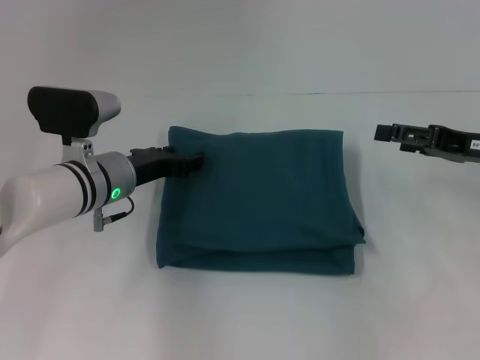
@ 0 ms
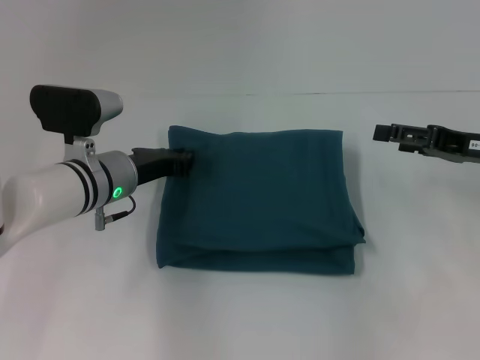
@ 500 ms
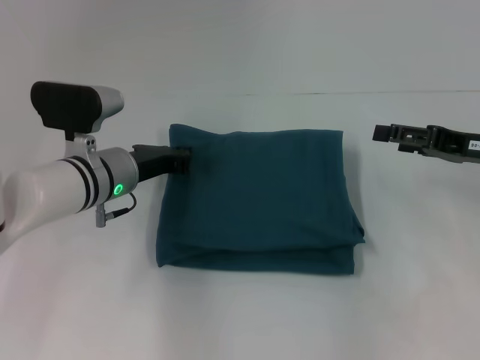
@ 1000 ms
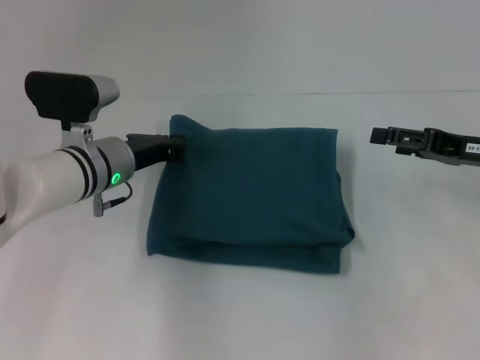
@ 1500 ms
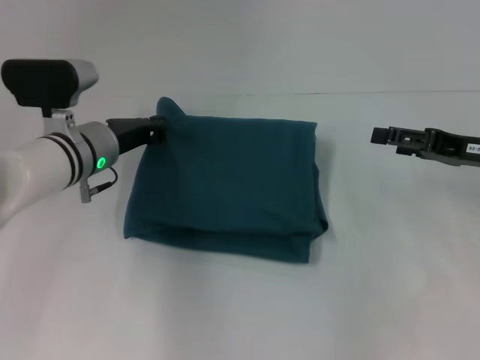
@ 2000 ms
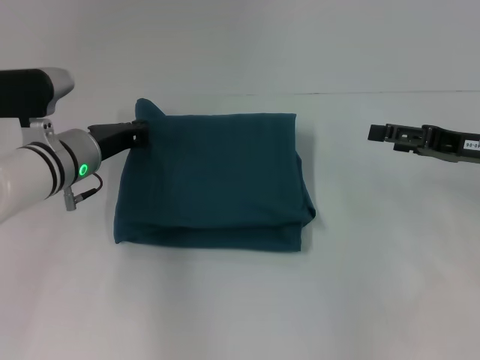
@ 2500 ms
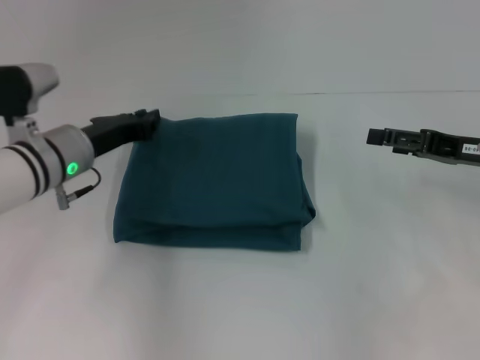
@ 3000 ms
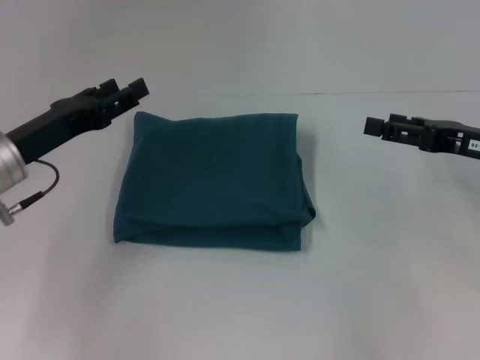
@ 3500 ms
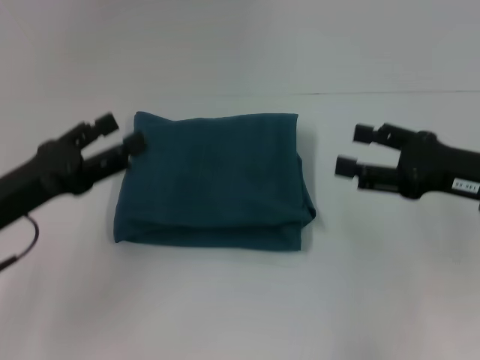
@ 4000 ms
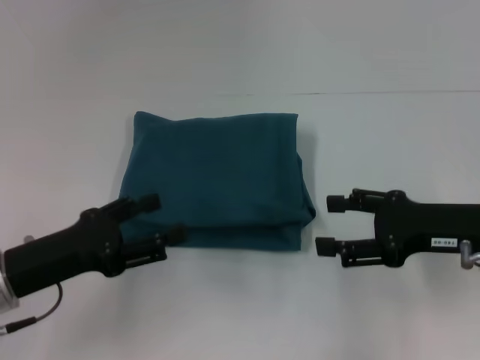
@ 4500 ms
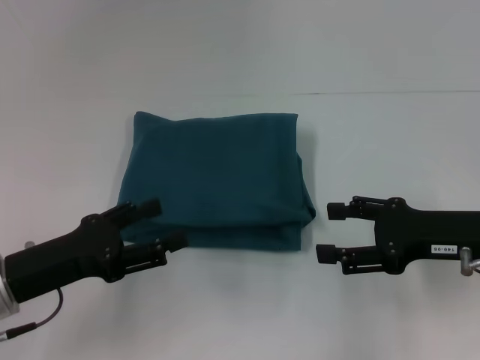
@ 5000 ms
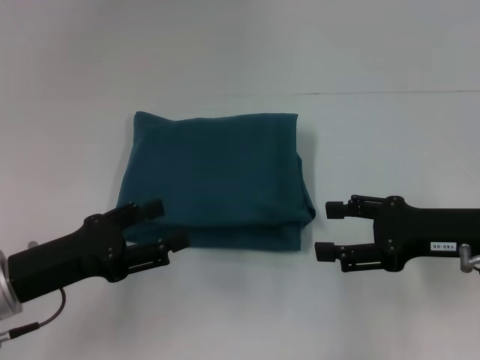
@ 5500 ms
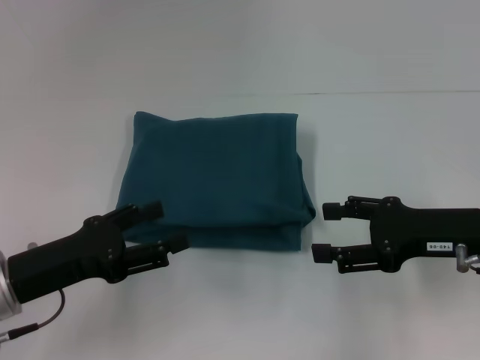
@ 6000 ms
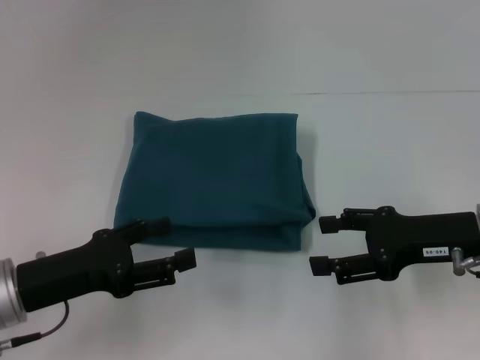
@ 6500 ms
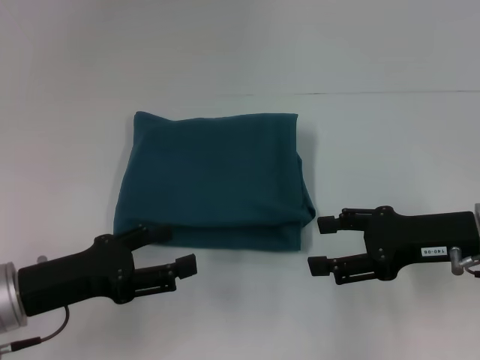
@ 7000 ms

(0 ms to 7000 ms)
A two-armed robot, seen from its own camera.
0 ms - 2000 ms: The left gripper closes up.
2000 ms - 3500 ms: The left gripper moves to the left and backward, approximately 10 cm, and opens up.
3500 ms - 5000 ms: The right gripper moves roughly 5 cm. Meanwhile the left gripper shifts approximately 10 cm backward, and opens up.
5000 ms - 7000 ms: There are only small adjustments of the grippers.

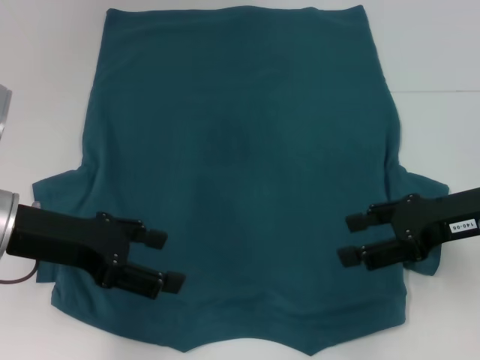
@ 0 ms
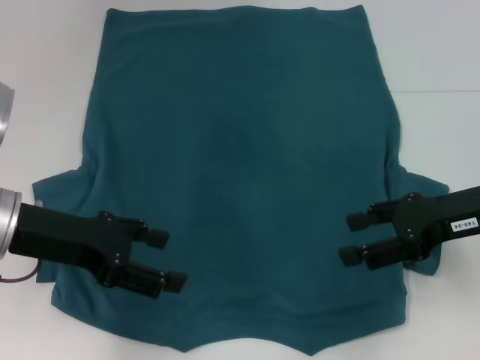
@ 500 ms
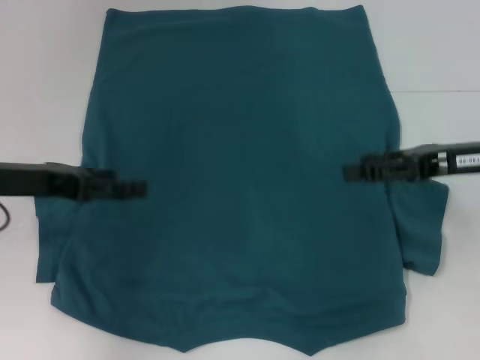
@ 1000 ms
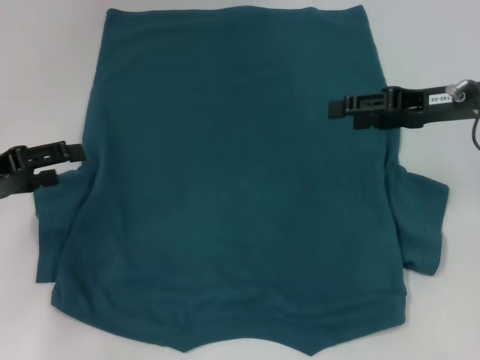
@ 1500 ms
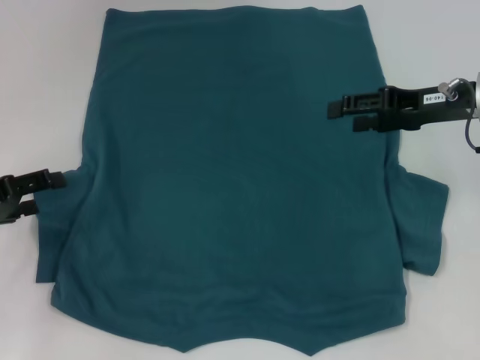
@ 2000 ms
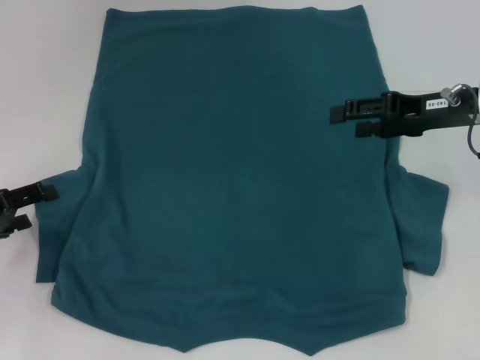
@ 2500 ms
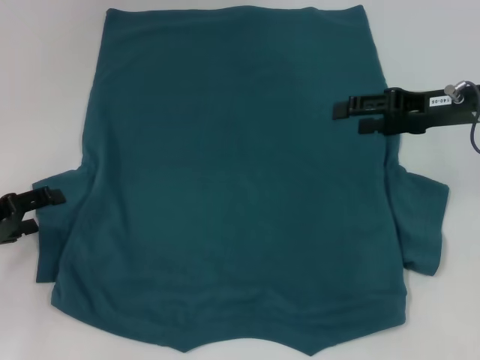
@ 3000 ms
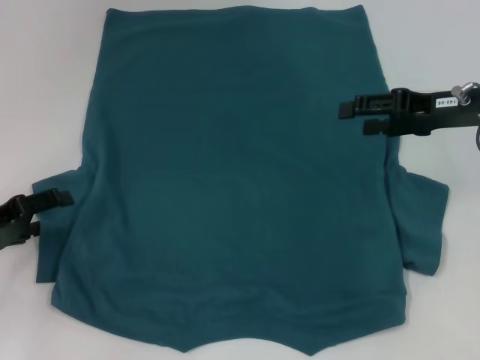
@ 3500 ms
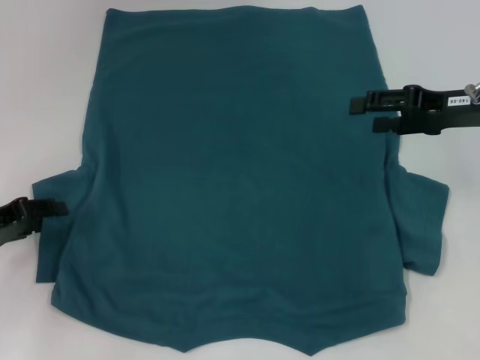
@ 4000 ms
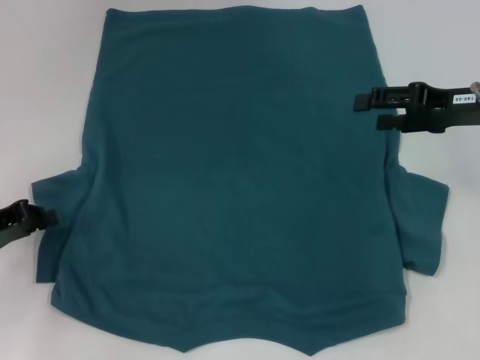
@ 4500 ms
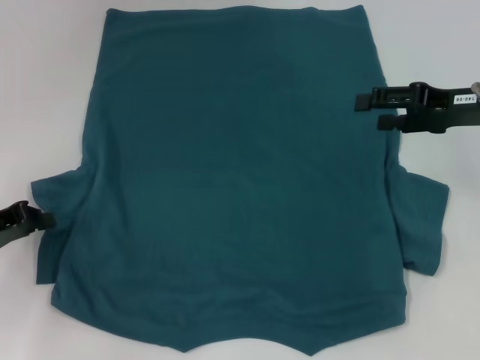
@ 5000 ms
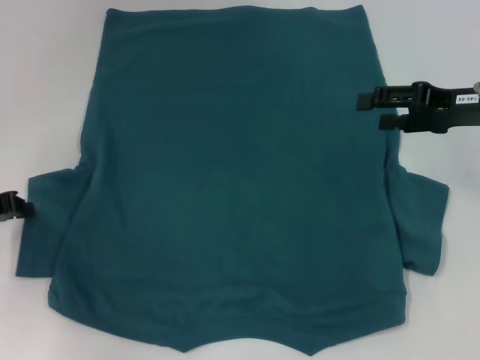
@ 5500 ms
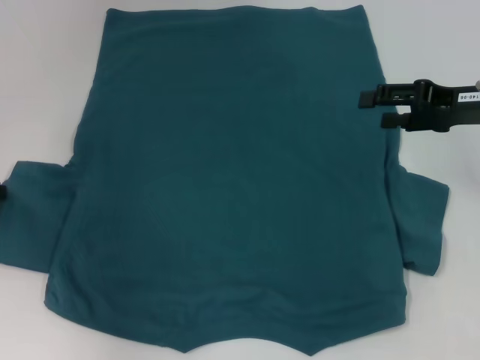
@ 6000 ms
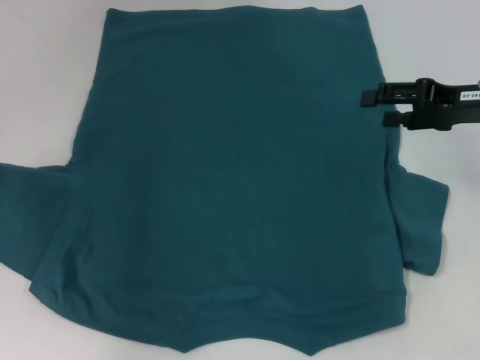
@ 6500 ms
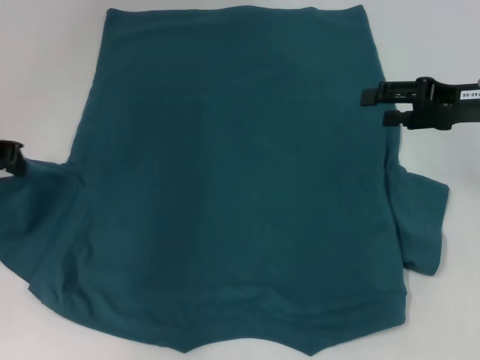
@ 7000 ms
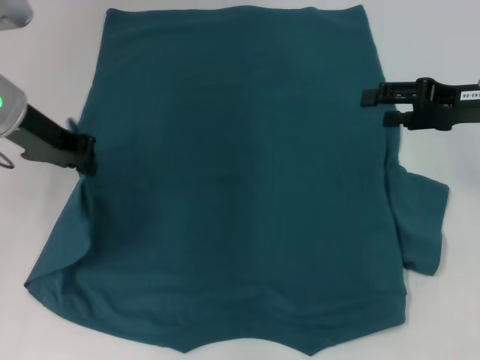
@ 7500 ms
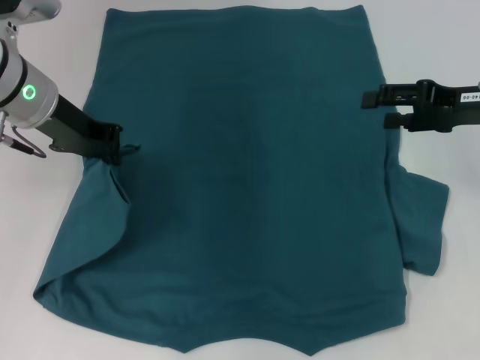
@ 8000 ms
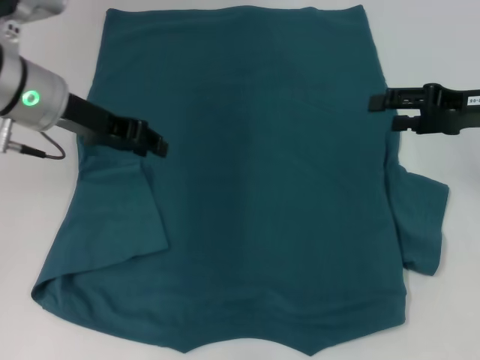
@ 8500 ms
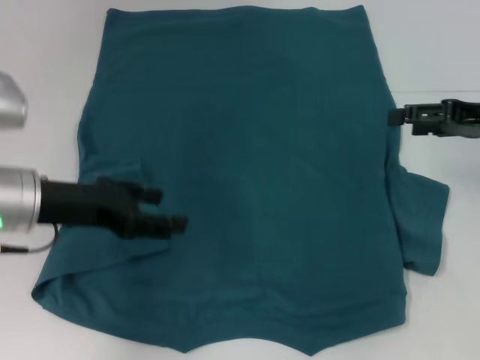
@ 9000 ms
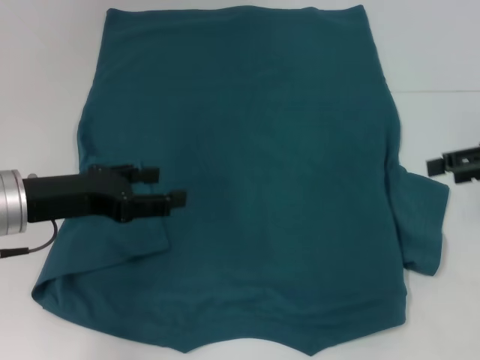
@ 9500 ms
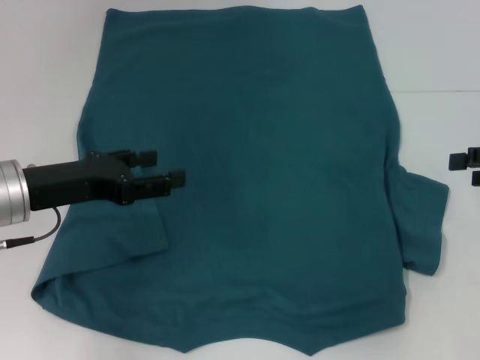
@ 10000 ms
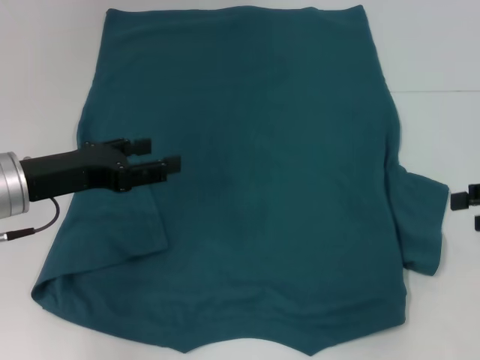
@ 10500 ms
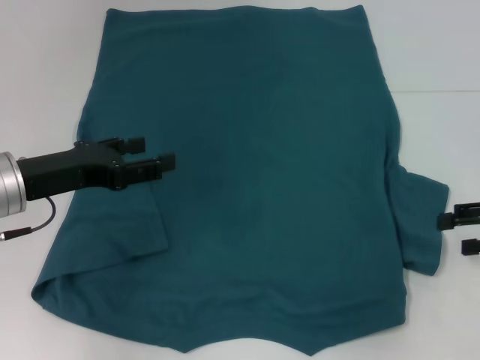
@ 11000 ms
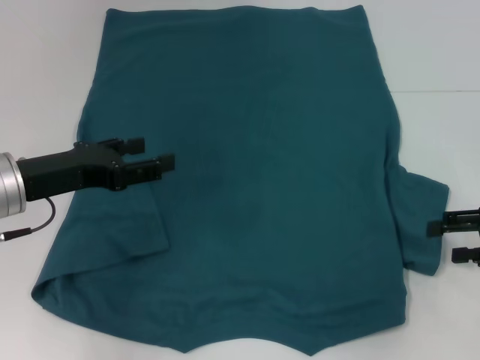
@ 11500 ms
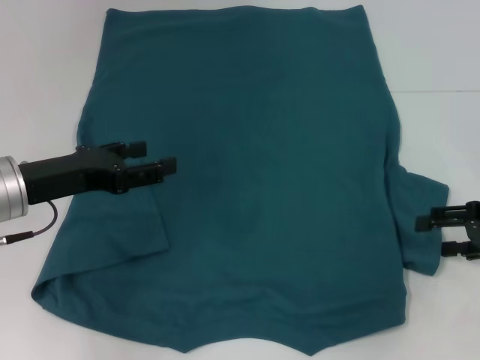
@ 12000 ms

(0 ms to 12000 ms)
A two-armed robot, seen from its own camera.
Step, 0 ms - 8000 ms: Fold the bottom left sleeve with your left hand.
0 ms - 2000 ms: The left gripper heads to the left and downward, covering roughly 10 cm, while the right gripper shifts roughly 10 cm forward.
2000 ms - 4000 ms: The grippers stay close to where they were, moving slightly.
4000 ms - 6000 ms: The left gripper travels upward by roughly 5 cm, and closes its fingers.
6000 ms - 8000 ms: The left gripper shifts some 15 cm to the right, forward and upward.
8000 ms - 10000 ms: The left gripper heads backward and downward, covering some 10 cm, and opens up. Meanwhile the right gripper is displaced to the right and backward by about 10 cm.
10000 ms - 12000 ms: The right gripper moves downward, about 5 cm.

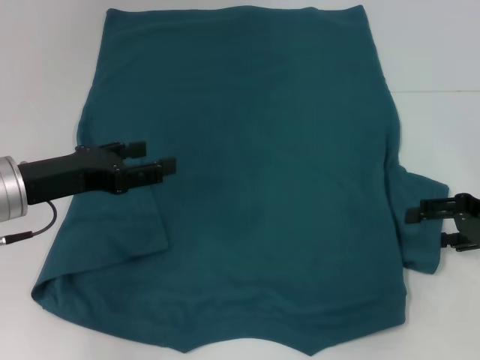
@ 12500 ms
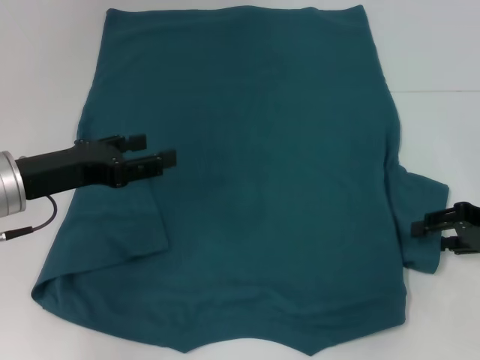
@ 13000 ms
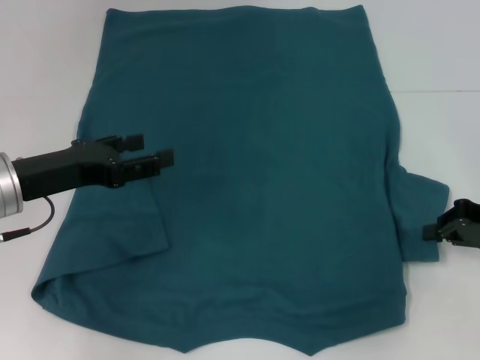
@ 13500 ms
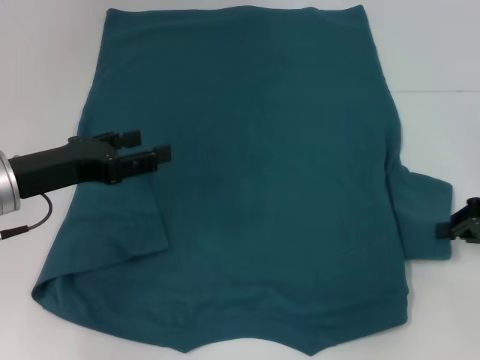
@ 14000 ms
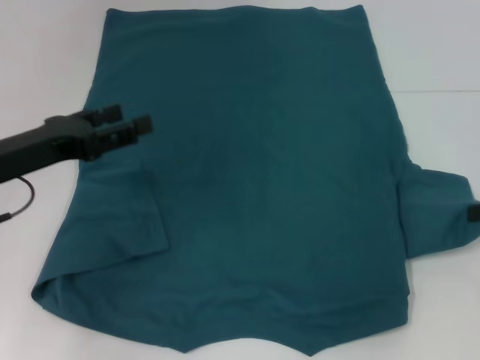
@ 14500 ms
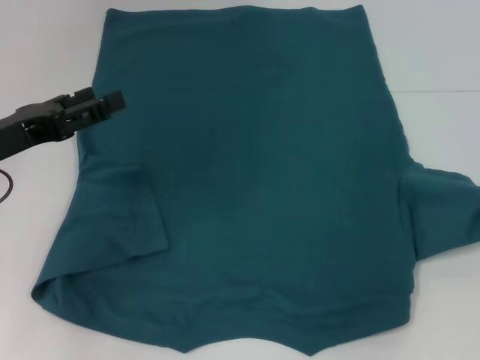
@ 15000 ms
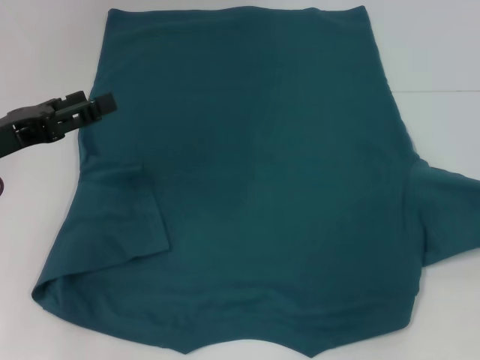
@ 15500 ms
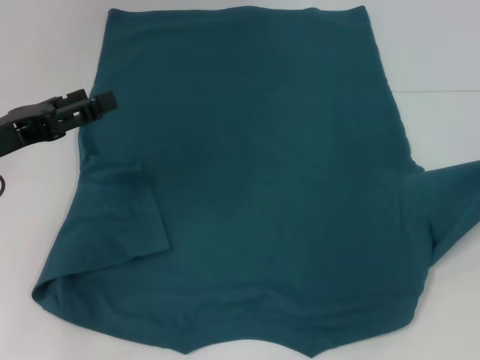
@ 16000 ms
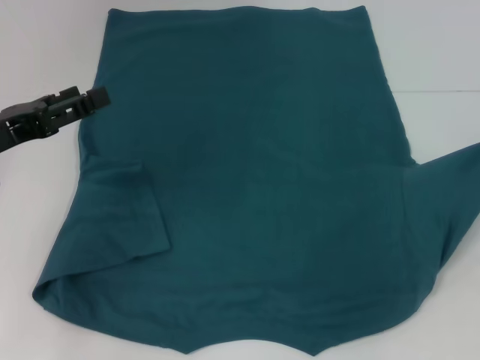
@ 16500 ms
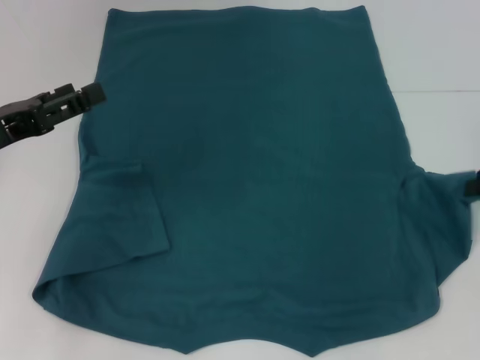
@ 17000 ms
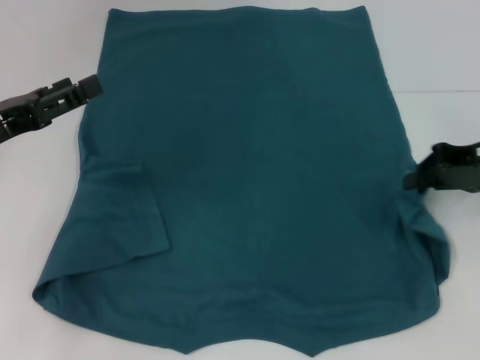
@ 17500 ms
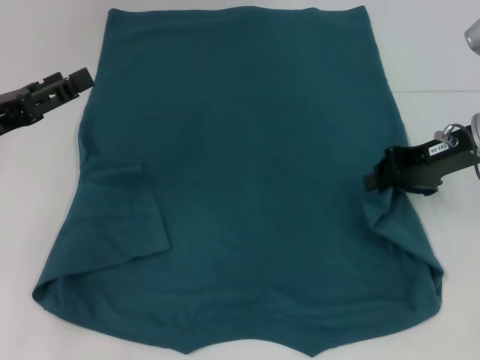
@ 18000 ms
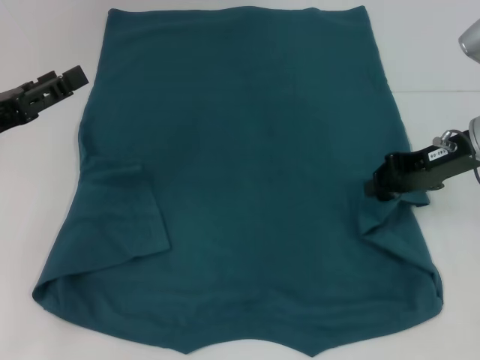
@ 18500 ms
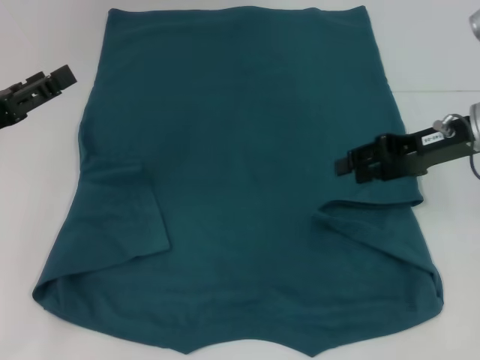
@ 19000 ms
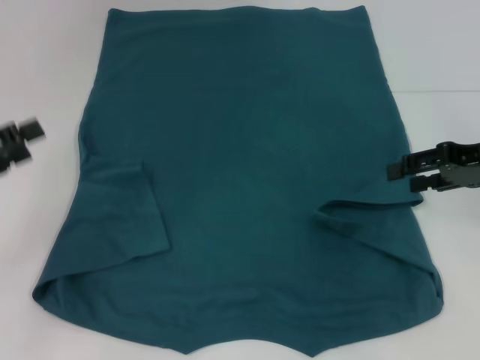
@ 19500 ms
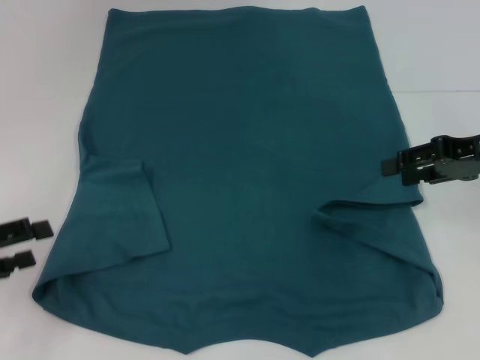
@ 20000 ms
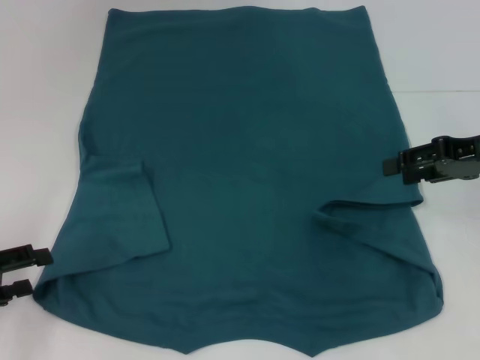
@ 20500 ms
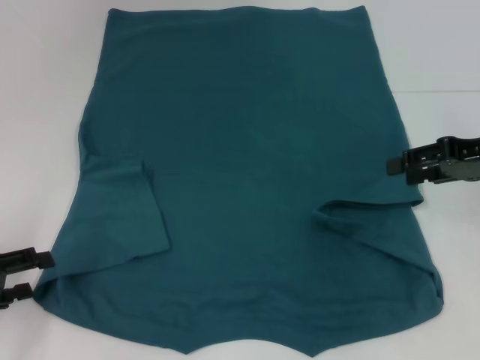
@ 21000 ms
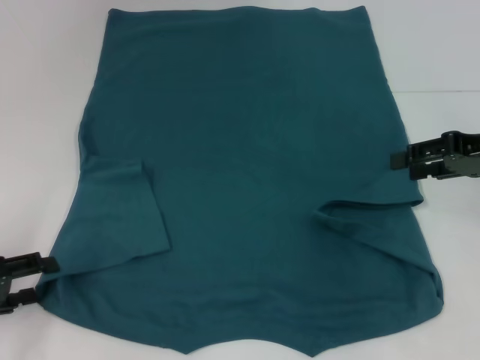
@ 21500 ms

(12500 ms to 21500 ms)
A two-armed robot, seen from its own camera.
Step, 12500 ms - 19000 ms: Fold the bottom right sleeve to the right.
12500 ms - 14500 ms: The right gripper closes.
17000 ms - 19500 ms: The left gripper shifts by about 5 cm. The right gripper opens.
19500 ms - 21500 ms: The left gripper heads downward, covering some 5 cm.
